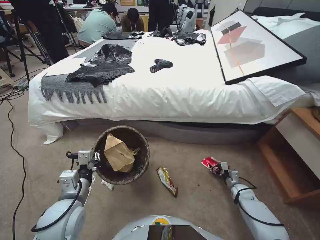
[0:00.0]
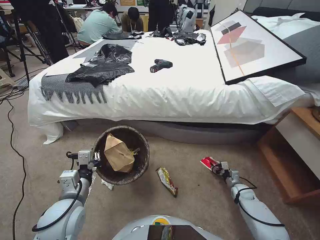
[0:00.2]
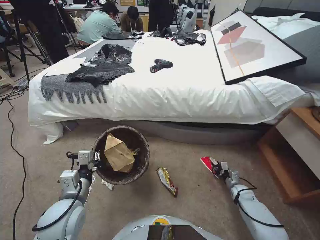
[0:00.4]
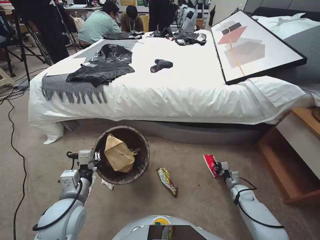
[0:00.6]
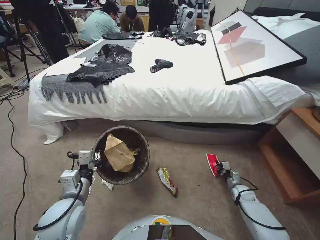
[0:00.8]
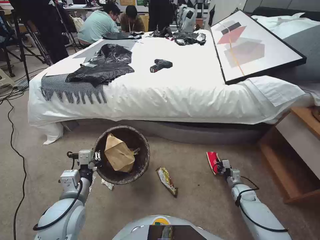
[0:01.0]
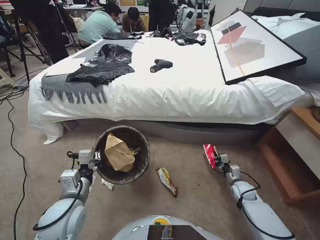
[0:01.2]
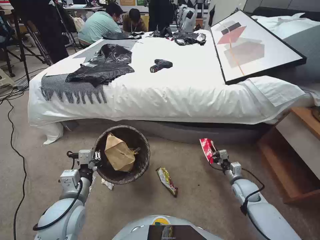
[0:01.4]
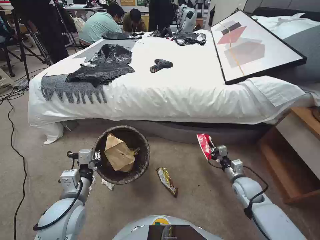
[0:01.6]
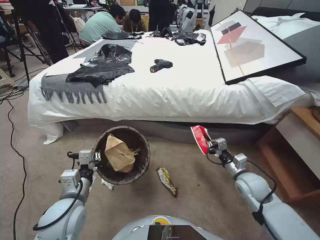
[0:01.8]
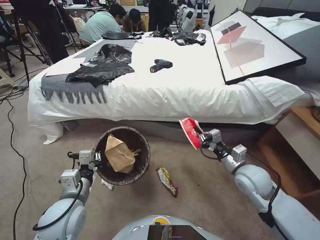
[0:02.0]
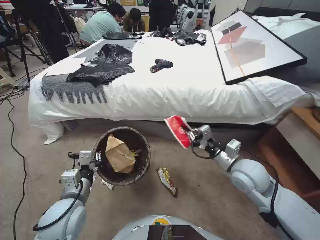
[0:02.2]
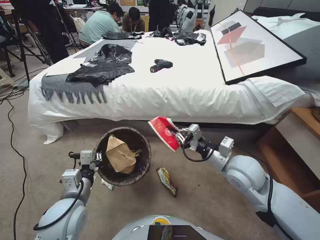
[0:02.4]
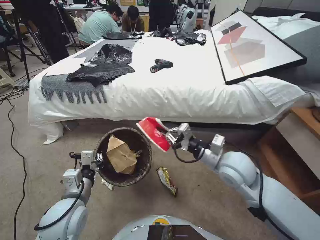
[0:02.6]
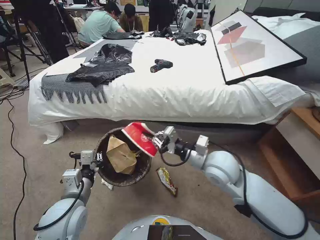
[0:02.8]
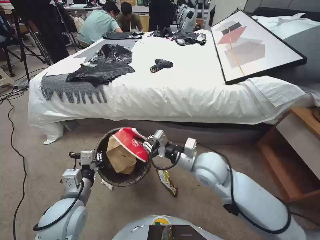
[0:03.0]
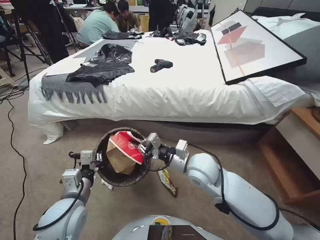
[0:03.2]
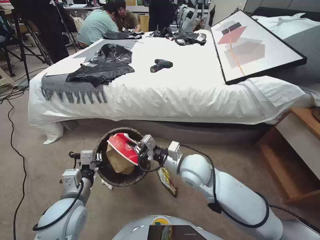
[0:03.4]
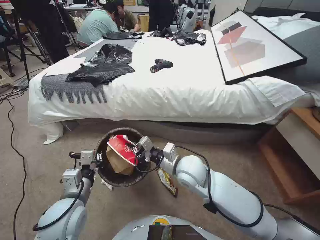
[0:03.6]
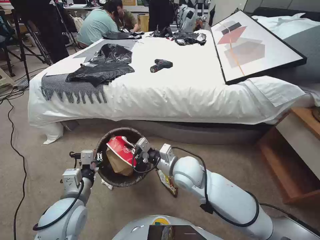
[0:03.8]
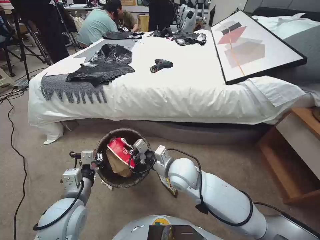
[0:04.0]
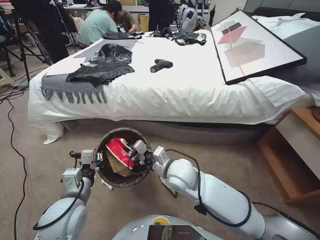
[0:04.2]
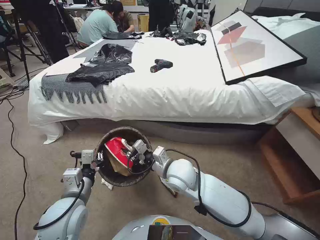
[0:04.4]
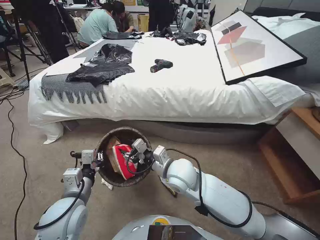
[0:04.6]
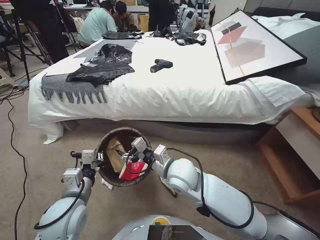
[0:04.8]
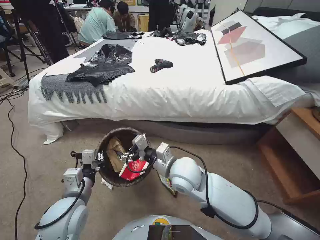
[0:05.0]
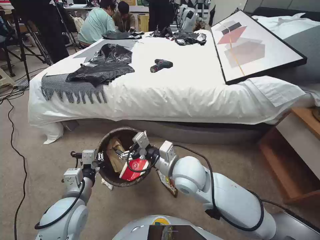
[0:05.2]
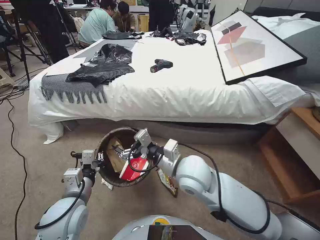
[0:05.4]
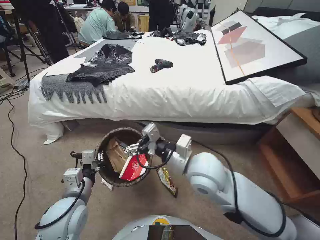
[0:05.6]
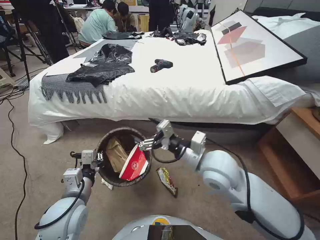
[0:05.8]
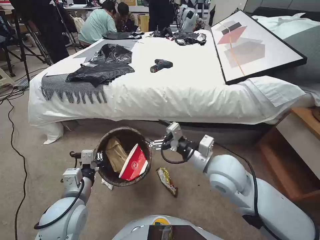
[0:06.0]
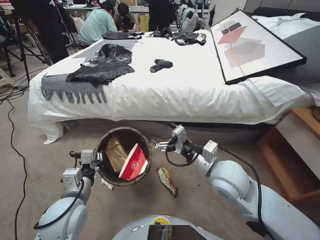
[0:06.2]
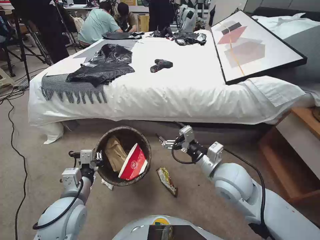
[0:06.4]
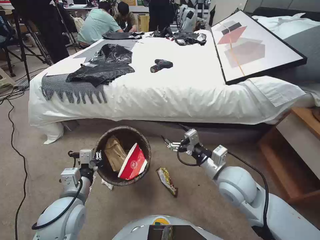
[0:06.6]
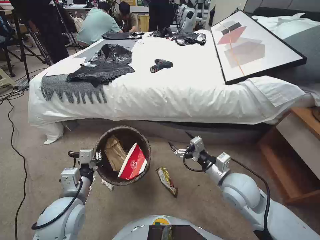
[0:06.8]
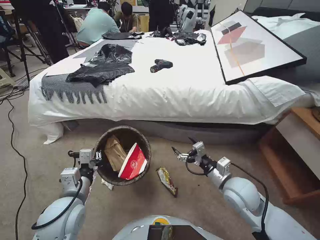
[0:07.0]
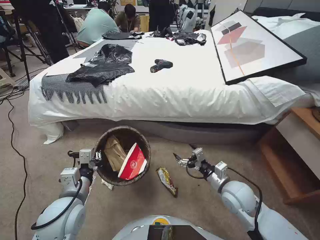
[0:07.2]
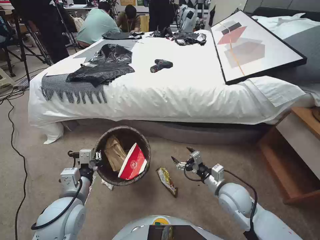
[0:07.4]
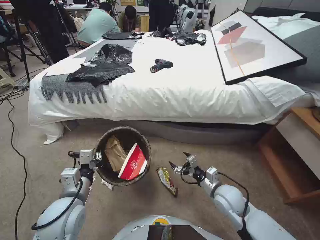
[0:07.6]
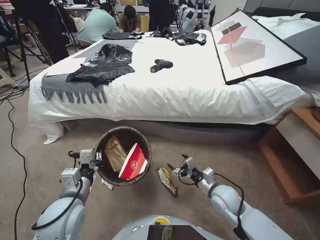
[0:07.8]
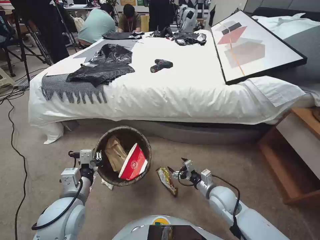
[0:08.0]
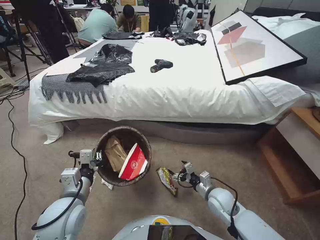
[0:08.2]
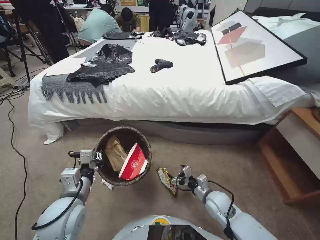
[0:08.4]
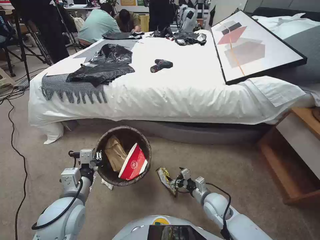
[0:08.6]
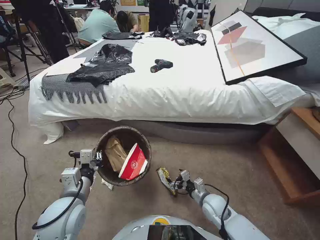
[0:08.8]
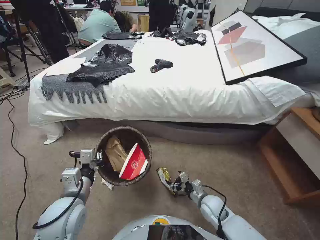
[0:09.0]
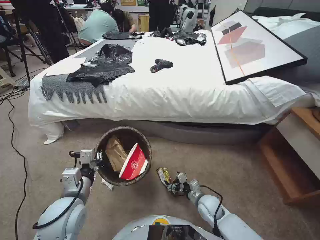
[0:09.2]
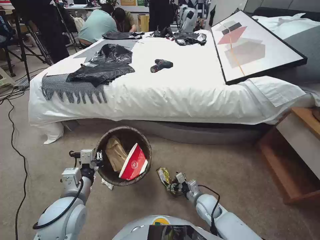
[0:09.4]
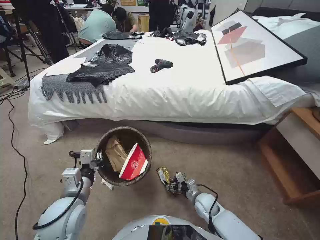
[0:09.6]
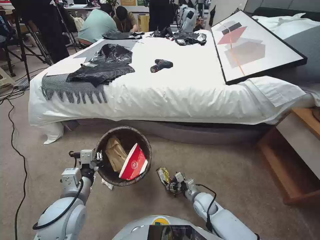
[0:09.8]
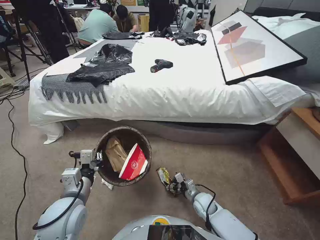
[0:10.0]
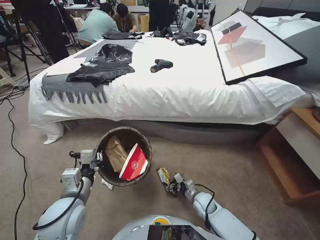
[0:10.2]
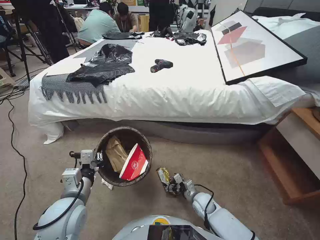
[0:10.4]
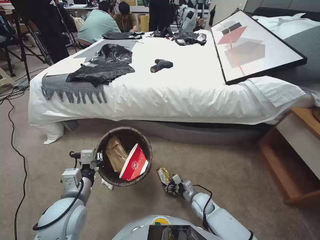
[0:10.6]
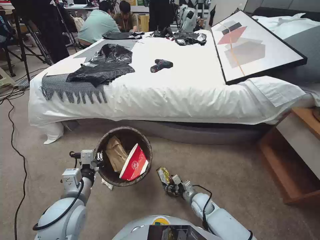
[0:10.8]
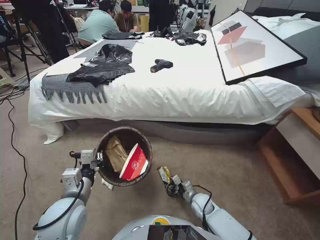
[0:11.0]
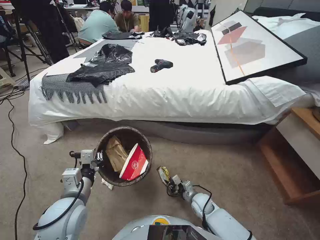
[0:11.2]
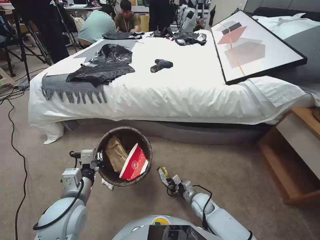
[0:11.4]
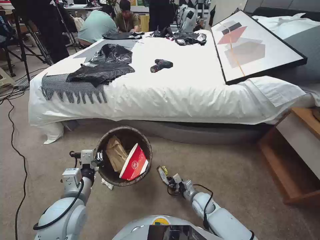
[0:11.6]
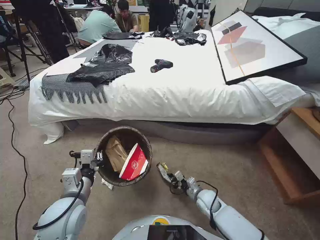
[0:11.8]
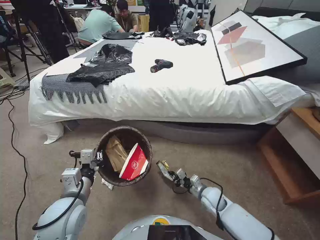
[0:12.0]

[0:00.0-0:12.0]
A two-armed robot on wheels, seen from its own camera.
Task of the whole recording: Pick up the trash bin, then pick up the garbage from the floor and place it into the trash bin.
0:00.0 to 0:01.6: The right gripper heads upward and to the left, covering about 15 cm, and closes.
0:01.6 to 0:03.0: The right gripper travels to the left and upward by about 30 cm.
0:03.0 to 0:04.4: The right gripper is displaced to the left and downward by about 10 cm.
0:04.4 to 0:06.0: The right gripper is displaced to the right and upward by roughly 15 cm, and opens up.
0:06.0 to 0:07.6: The right gripper moves downward and to the right, approximately 20 cm.
0:07.6 to 0:09.0: The right gripper moves downward, some 10 cm.
0:09.0 to 0:10.4: The right gripper goes about 5 cm downward.
0:10.4 to 0:12.0: The right gripper closes.

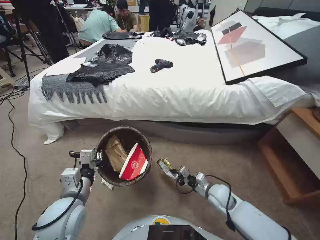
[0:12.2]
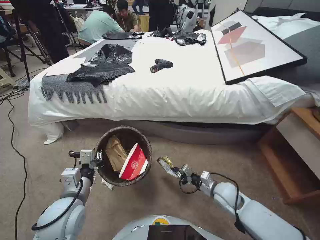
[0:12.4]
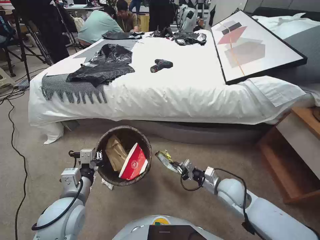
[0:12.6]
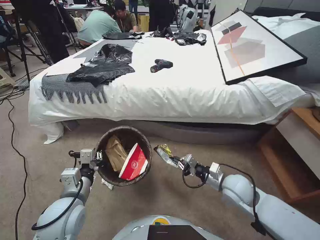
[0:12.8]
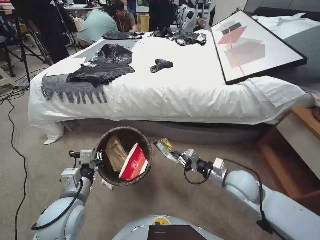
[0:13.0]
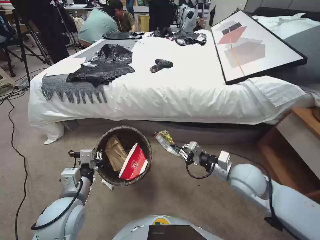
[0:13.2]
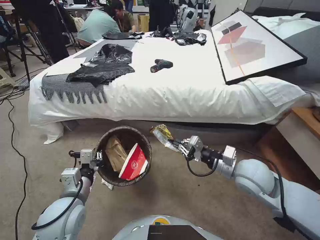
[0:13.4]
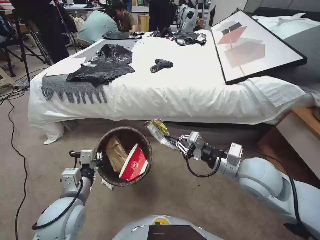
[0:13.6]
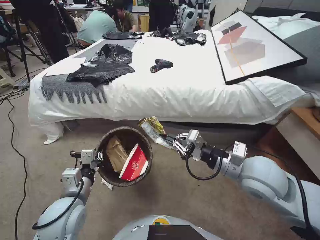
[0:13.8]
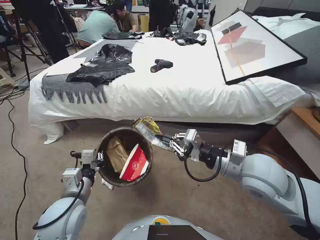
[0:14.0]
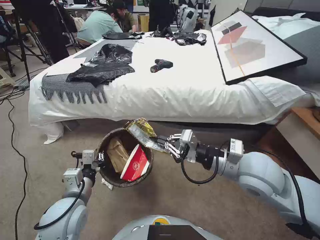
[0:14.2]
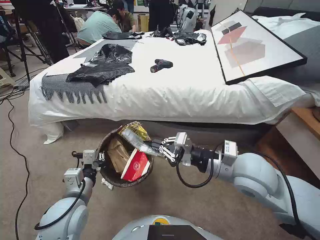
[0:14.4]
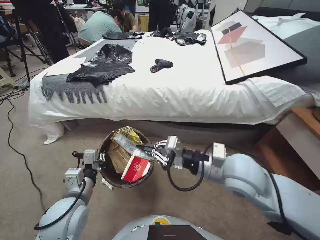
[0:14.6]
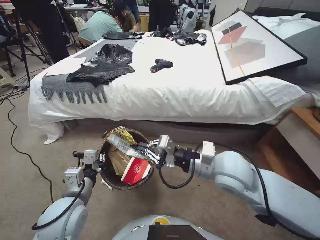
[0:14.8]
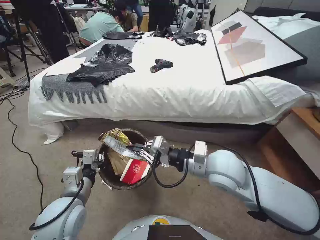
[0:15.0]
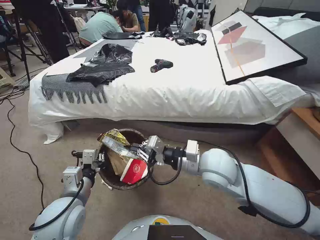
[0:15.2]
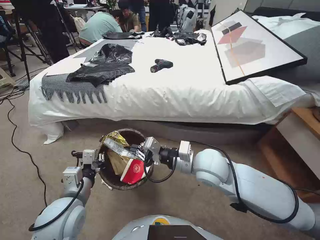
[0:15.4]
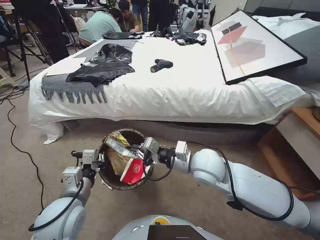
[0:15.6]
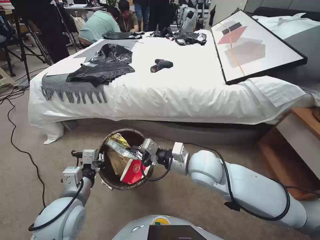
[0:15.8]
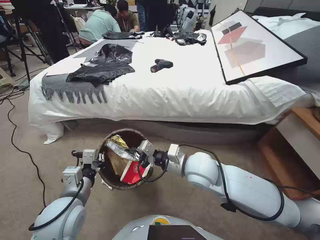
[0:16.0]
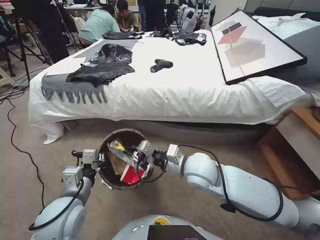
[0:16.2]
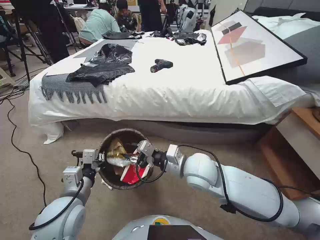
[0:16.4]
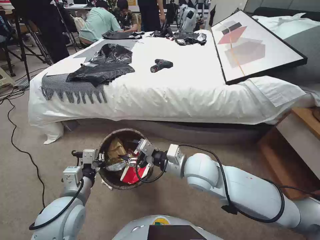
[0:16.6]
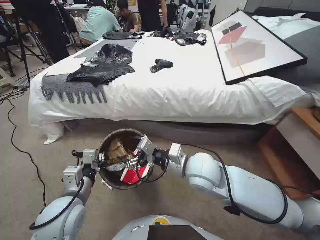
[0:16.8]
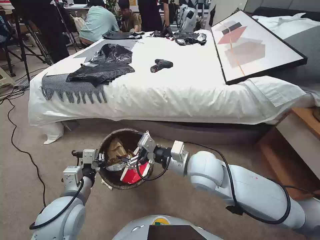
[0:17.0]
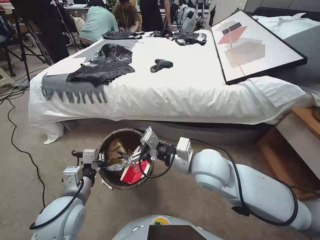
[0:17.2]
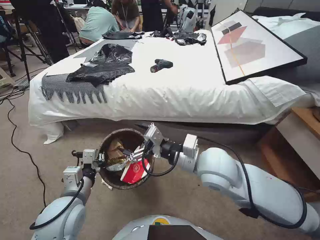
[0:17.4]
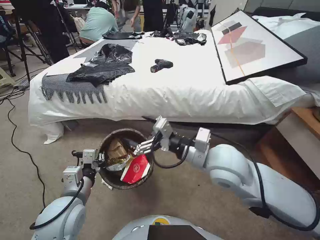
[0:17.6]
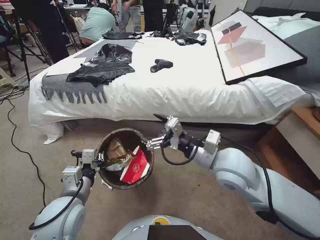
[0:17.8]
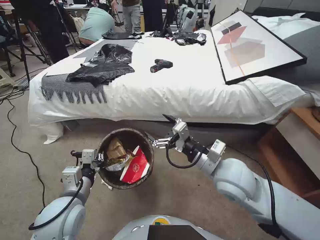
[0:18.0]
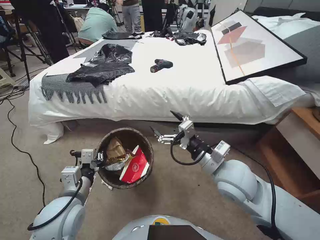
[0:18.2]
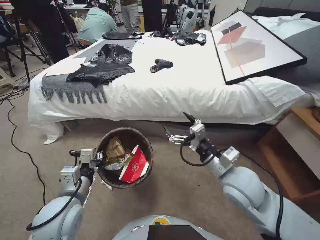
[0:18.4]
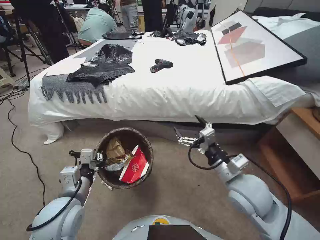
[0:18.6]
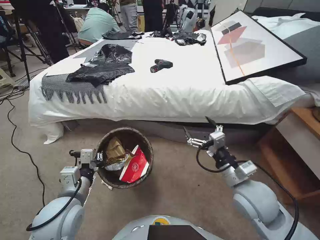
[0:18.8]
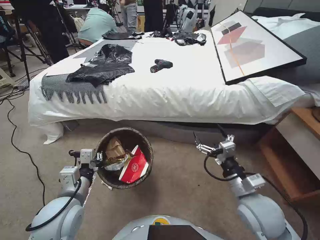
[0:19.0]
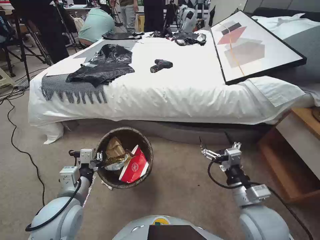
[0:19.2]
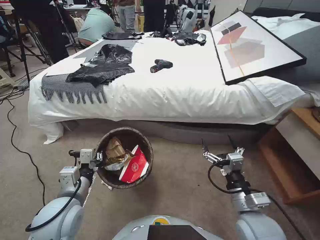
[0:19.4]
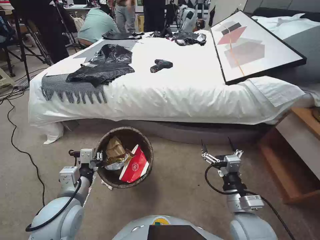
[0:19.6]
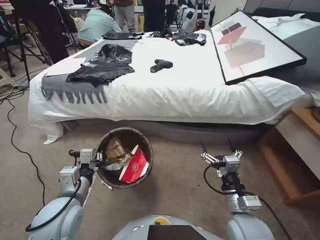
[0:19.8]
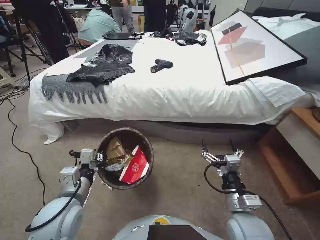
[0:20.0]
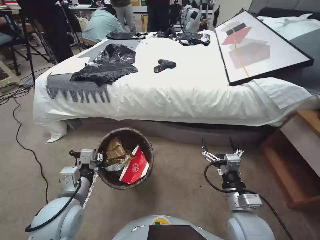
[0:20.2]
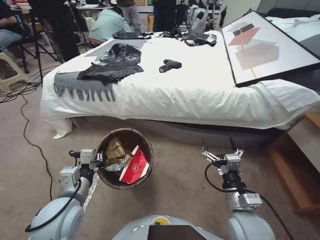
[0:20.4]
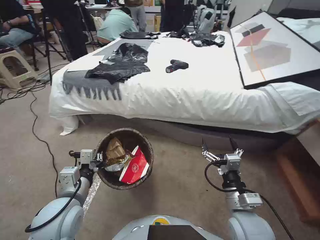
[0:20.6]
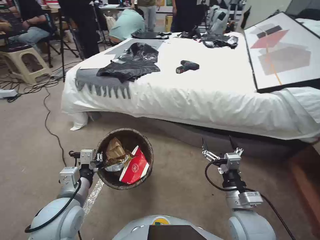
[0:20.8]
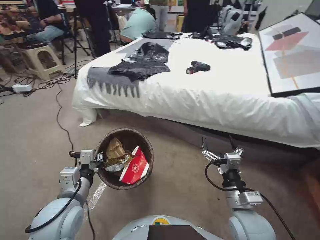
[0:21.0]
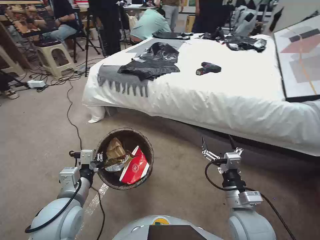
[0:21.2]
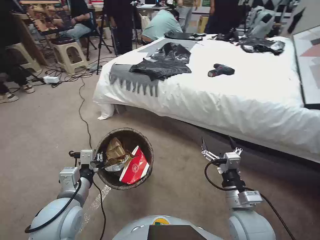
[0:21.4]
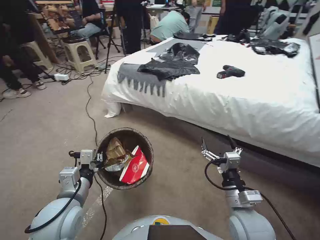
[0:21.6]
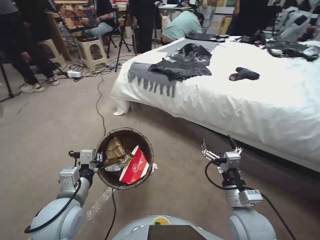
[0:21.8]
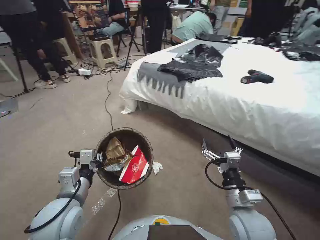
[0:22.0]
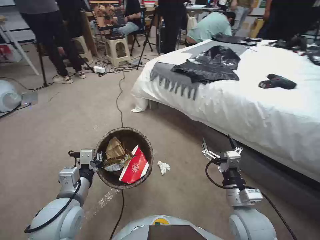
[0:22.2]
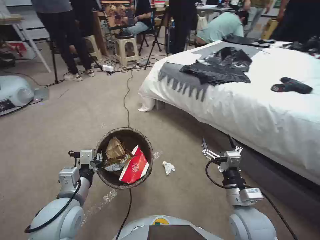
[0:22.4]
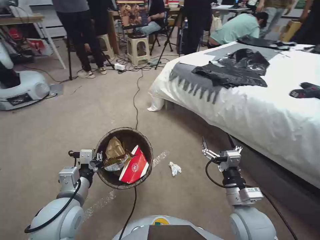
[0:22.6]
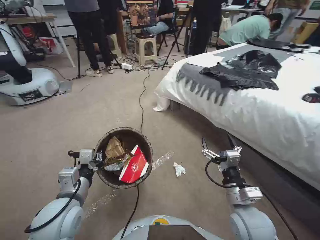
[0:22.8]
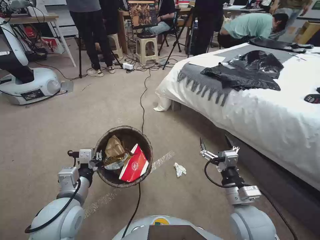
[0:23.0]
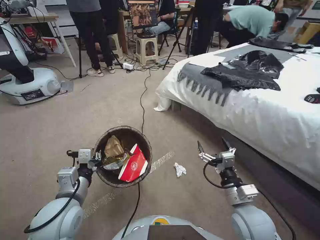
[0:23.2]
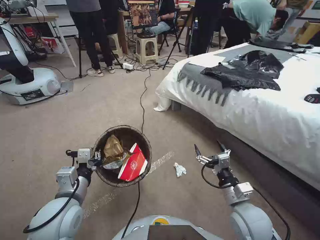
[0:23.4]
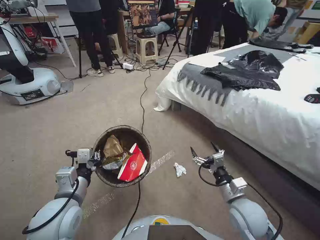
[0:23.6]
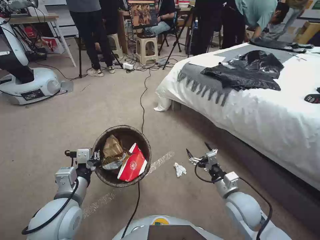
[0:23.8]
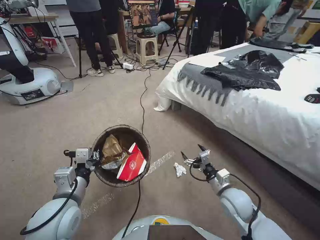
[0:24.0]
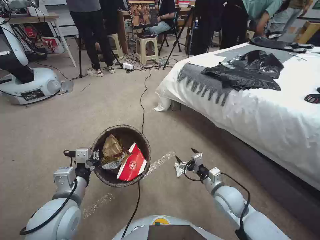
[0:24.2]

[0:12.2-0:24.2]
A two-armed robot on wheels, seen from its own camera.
Task of the whole recording: Pick up the trash bin, then pick up the garbage from the floor and place it into the trash bin.
0:12.2 to 0:13.8: The right gripper travels upward by approximately 30 cm.
0:13.8 to 0:15.2: The right gripper heads to the left, covering about 10 cm.
0:15.2 to 0:16.6: The right gripper shifts by about 5 cm, and opens.
0:16.6 to 0:18.2: The right gripper travels to the right by some 5 cm, and opens its fingers.
0:18.2 to 0:19.8: The right gripper goes approximately 15 cm downward, backward and to the right.
0:22.6 to 0:24.2: The right gripper heads downward and forward, covering roughly 10 cm.
